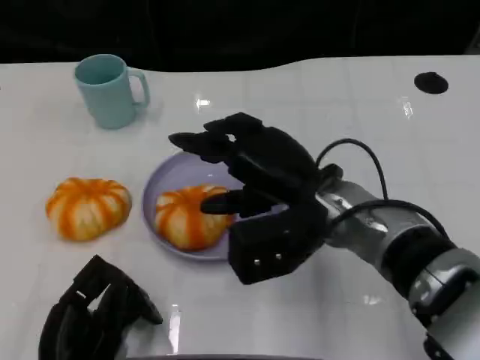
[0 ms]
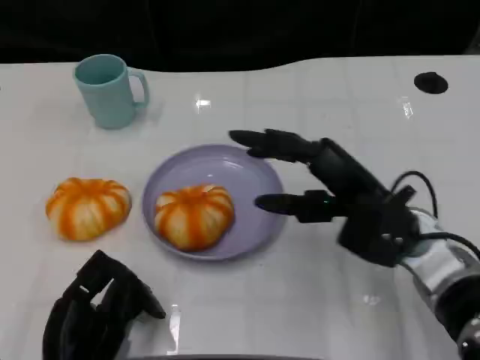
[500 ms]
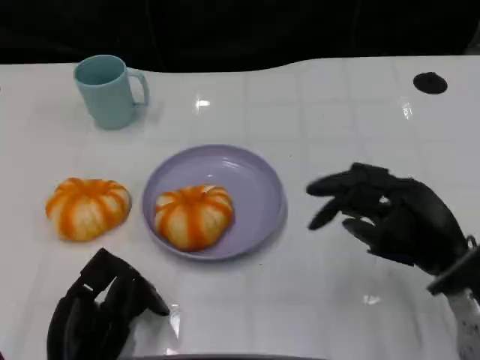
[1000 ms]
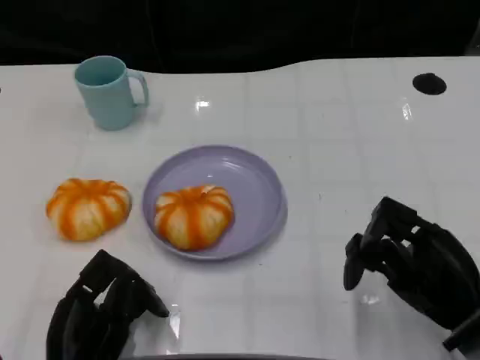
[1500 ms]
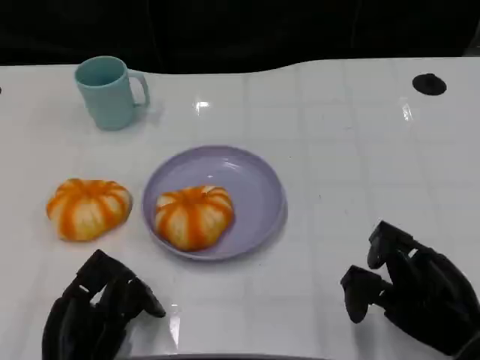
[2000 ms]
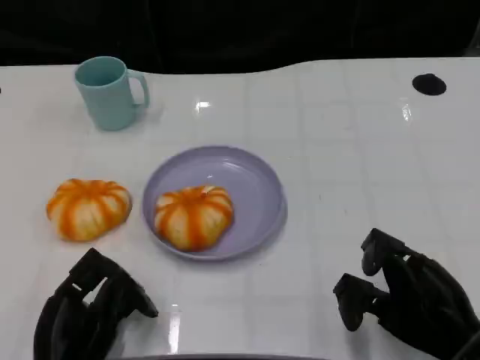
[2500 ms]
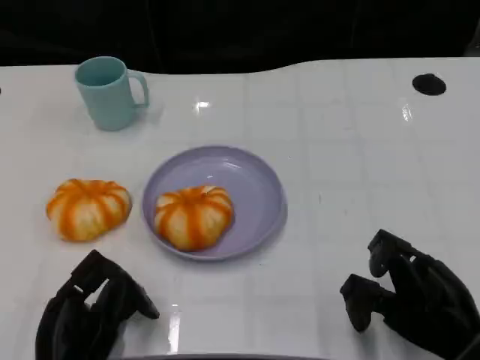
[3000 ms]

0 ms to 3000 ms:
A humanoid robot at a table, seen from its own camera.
Task of the whole recording: Grasp the bread from the table and place it into the plate.
0 ms to 1500 ms: The right hand travels to the right, backward and downward by some 20 cm.
1500 ms to 3000 ms: The hands move only a little.

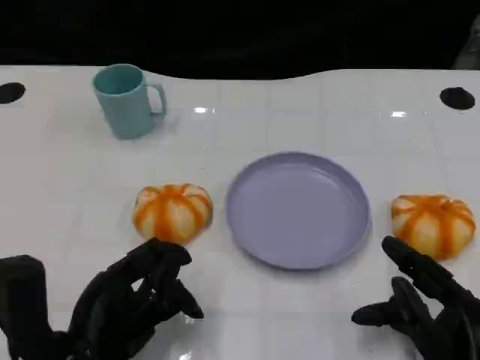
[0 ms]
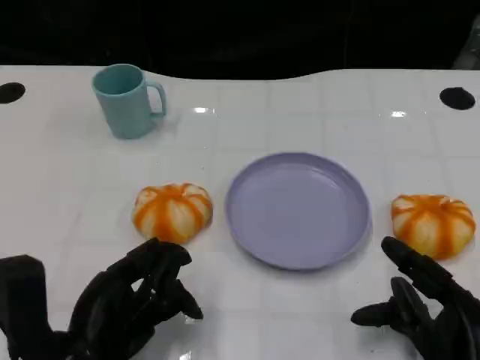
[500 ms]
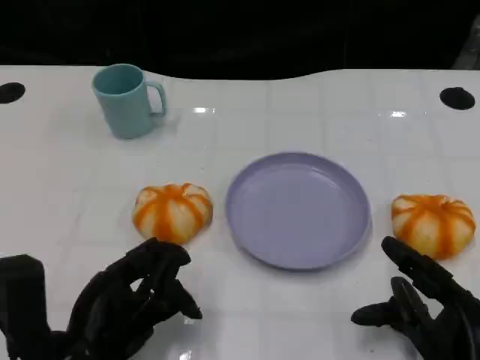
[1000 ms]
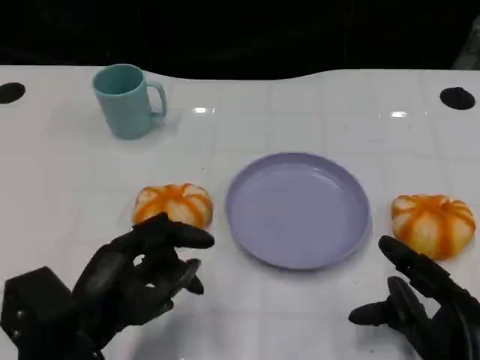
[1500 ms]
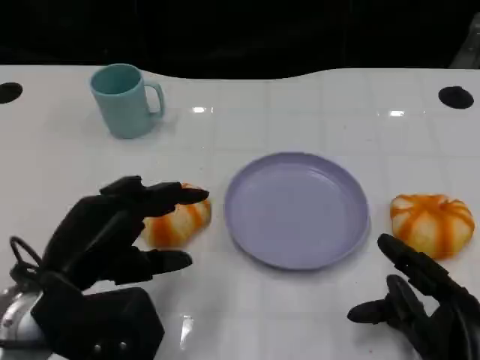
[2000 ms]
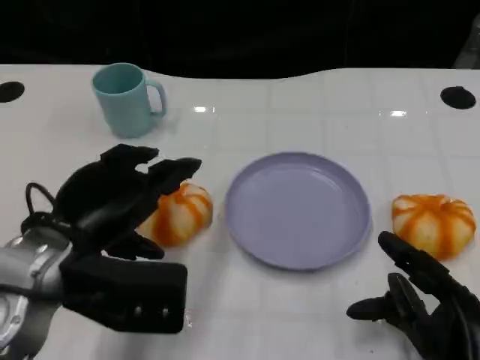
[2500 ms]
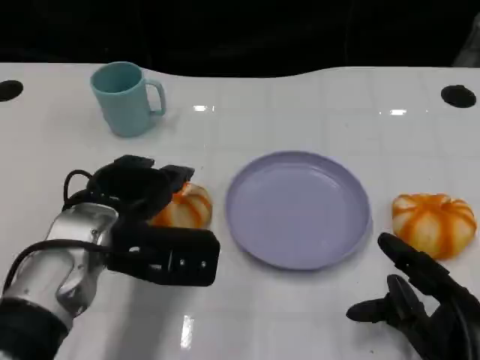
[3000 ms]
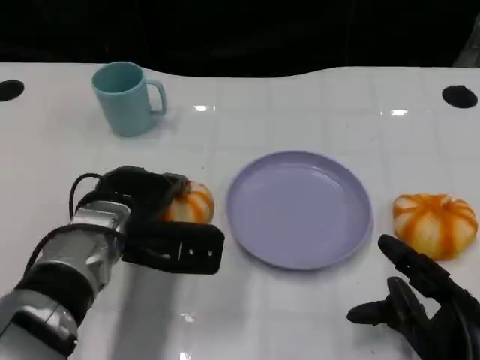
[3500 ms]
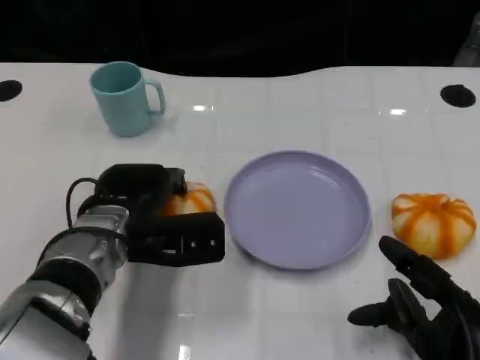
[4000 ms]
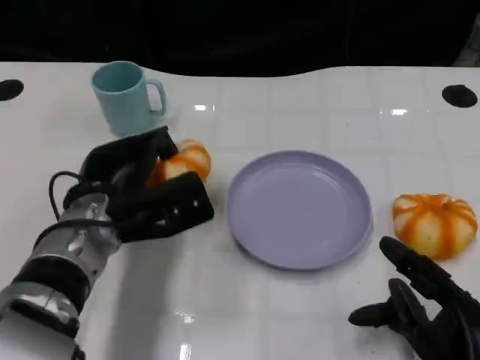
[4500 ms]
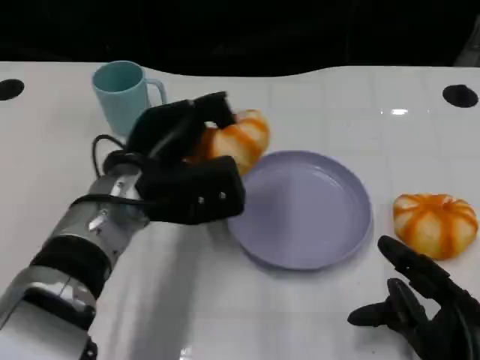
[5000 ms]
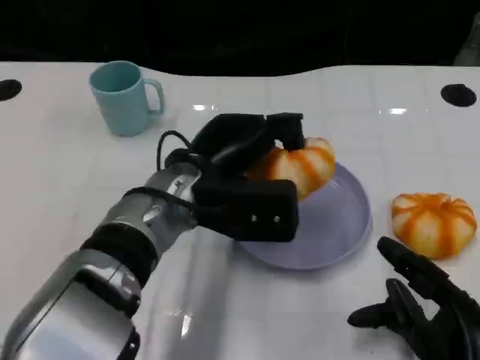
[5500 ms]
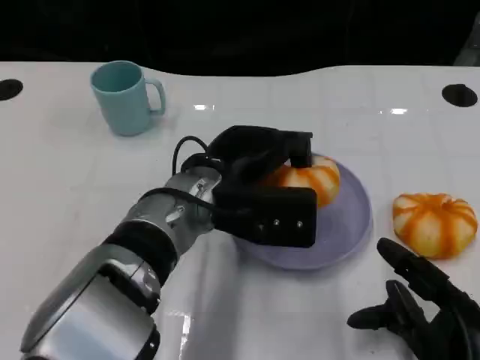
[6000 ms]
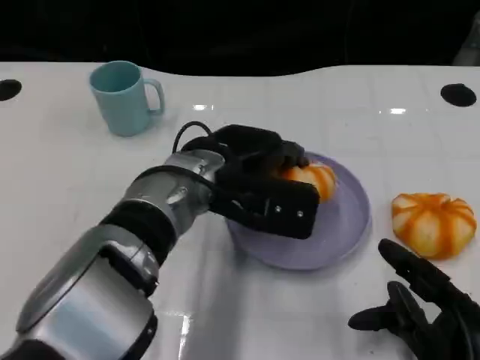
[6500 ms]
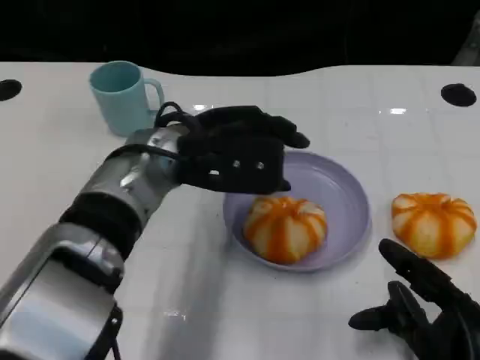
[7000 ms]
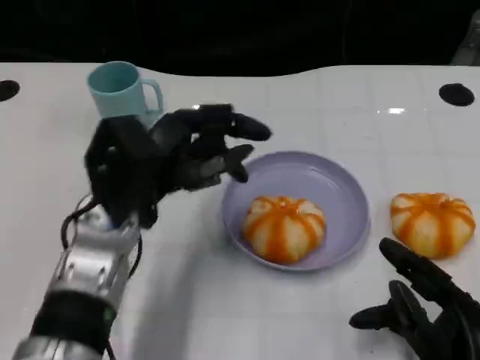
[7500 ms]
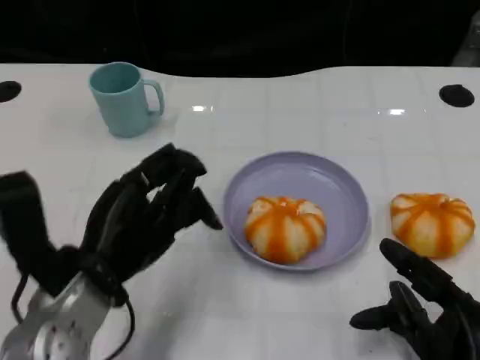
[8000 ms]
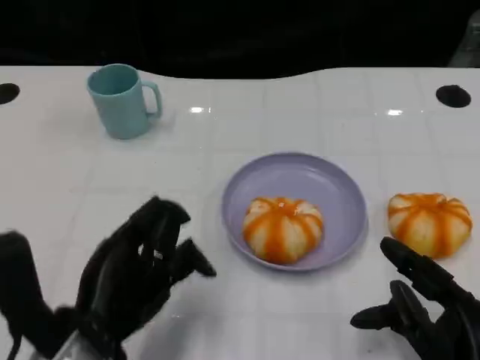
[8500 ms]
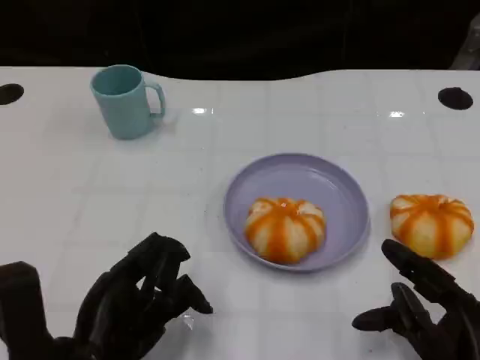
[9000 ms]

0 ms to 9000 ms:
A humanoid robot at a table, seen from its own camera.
Task of the whole recording: Grasp the bread from the table and place it into the plate.
0 ms to 2000 ms: The left hand moves upward, some 5 cm.
2000 ms to 4500 ms: The left hand is displaced forward by approximately 10 cm.
4500 ms to 7000 ms: The left hand shifts about 10 cm upward and to the right.
7000 ms to 9000 ms: The left hand moves backward, to the left and downward, approximately 20 cm.

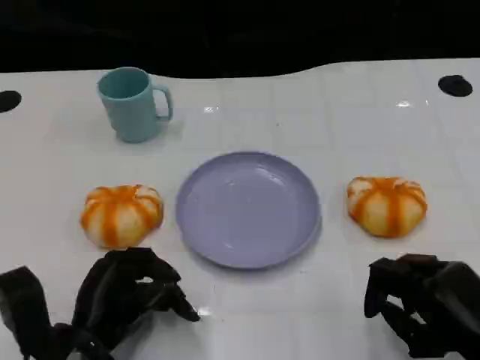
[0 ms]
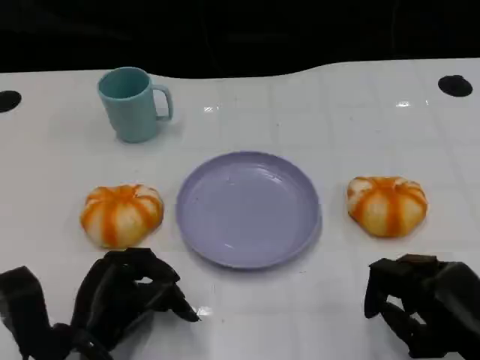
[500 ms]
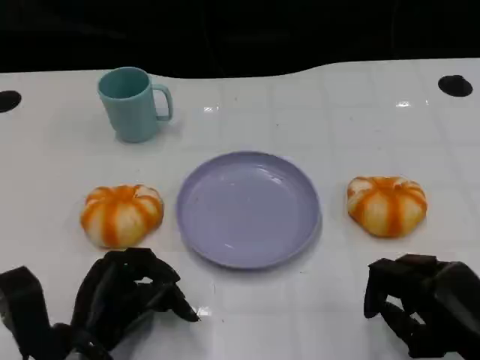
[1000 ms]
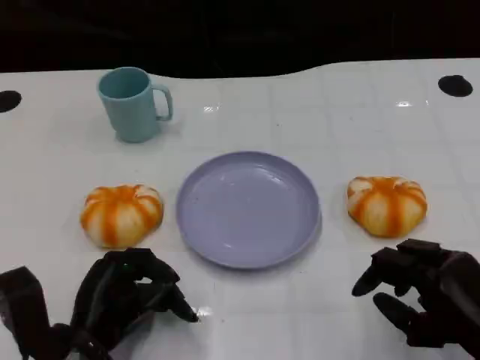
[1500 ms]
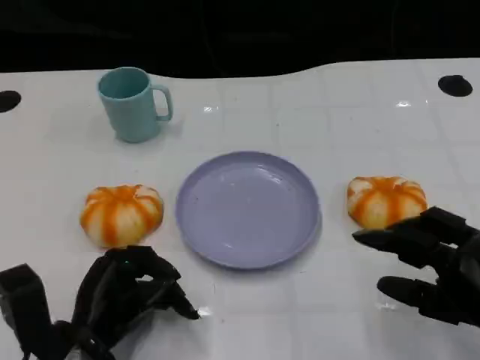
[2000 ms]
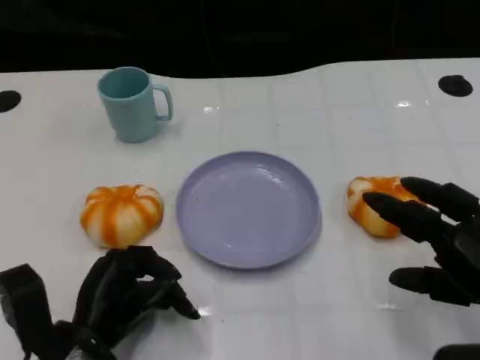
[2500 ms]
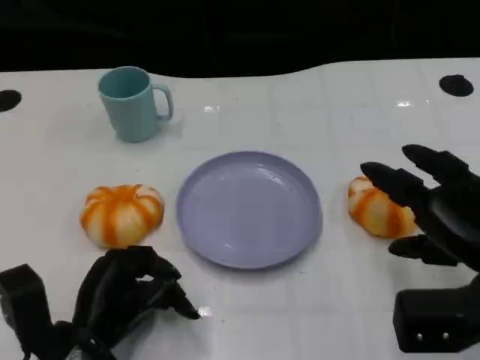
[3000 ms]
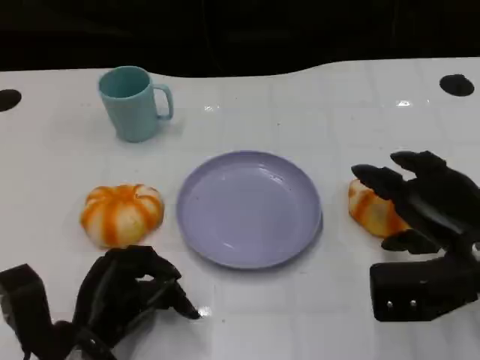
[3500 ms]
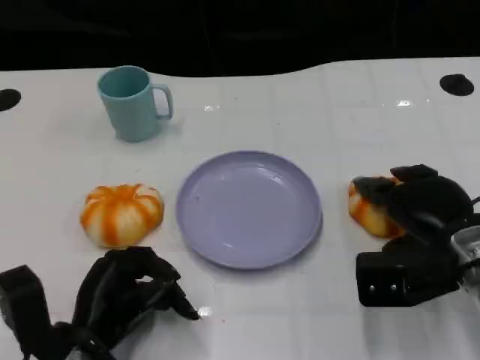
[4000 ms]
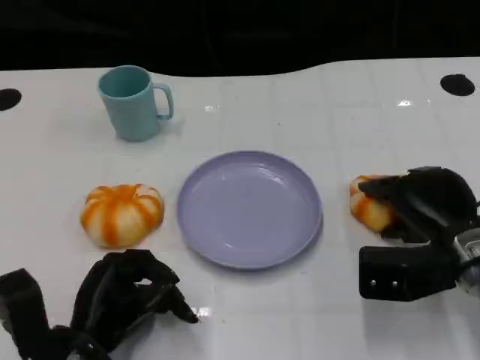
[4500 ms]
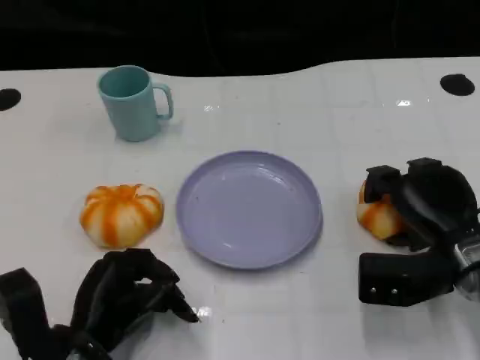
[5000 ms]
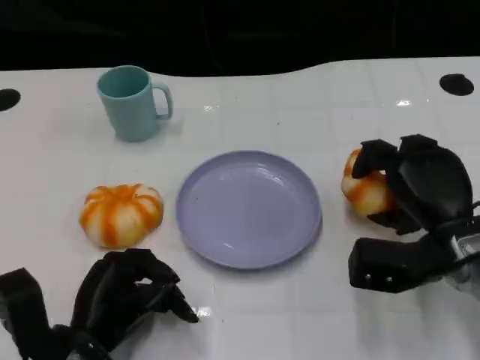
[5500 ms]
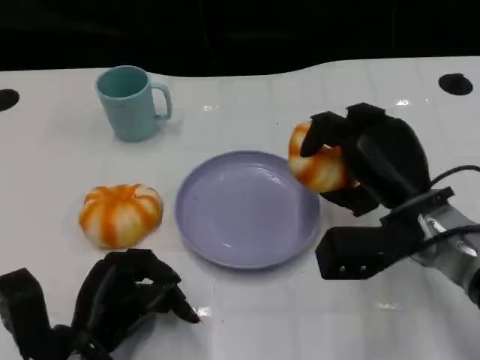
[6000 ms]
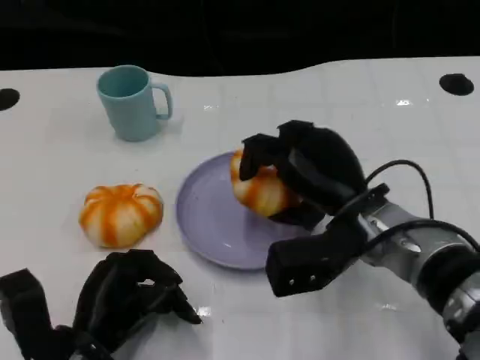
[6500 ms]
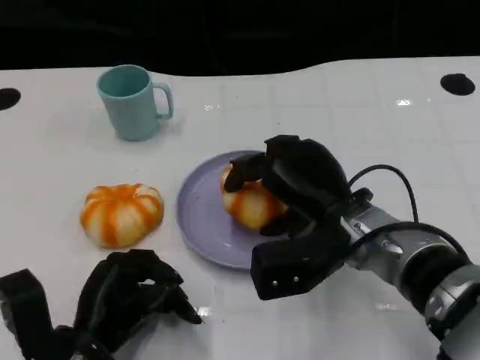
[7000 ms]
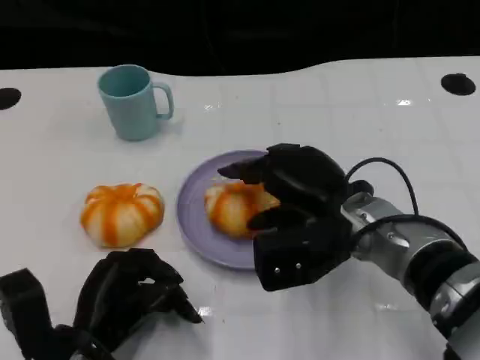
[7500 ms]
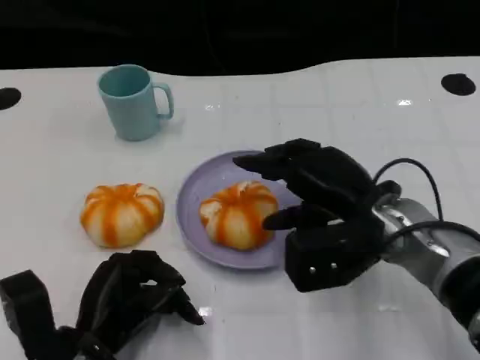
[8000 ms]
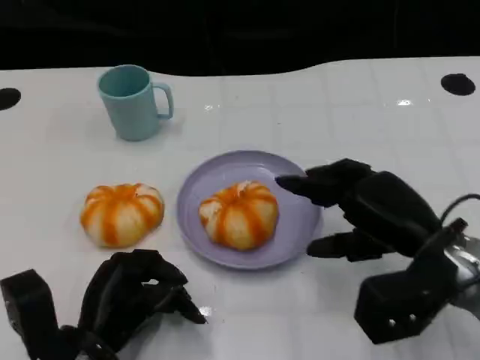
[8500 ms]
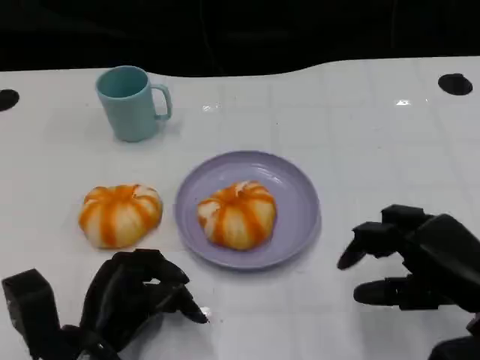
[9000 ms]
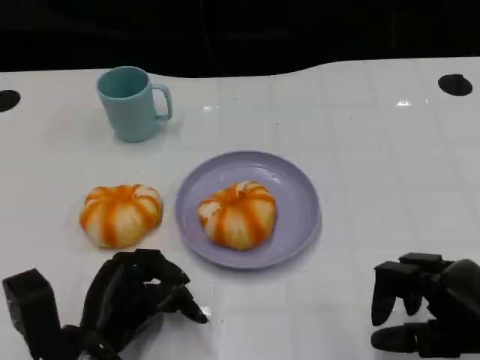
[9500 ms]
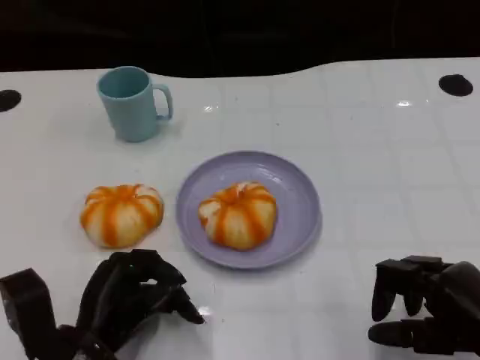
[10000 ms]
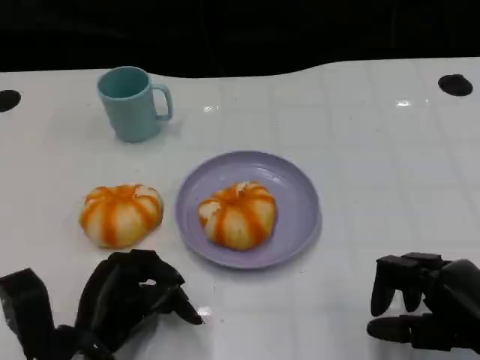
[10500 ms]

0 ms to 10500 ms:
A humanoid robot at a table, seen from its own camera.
Task of the whole recording: Grasp the bread from the table and place it into the plate.
0 ms to 2000 ms: The hands move only a little.
2000 ms to 4000 ms: The right hand shifts approximately 10 cm forward.
4000 ms to 6500 ms: The right hand moves to the left, approximately 10 cm.
6500 ms to 8500 ms: The right hand goes some 10 cm to the right.
8500 ms to 10500 ms: The right hand moves backward and to the right, roughly 10 cm.

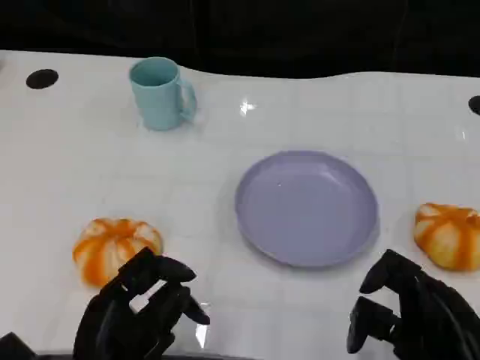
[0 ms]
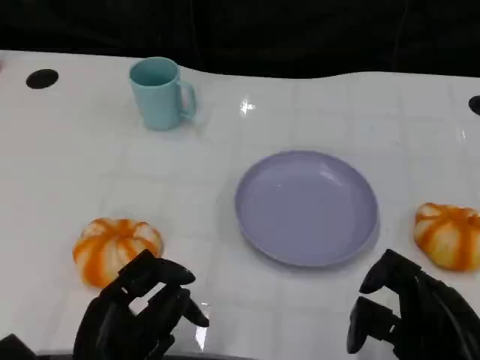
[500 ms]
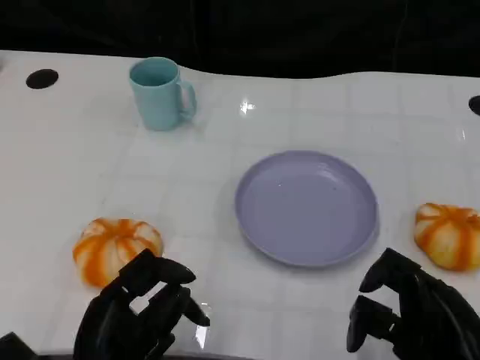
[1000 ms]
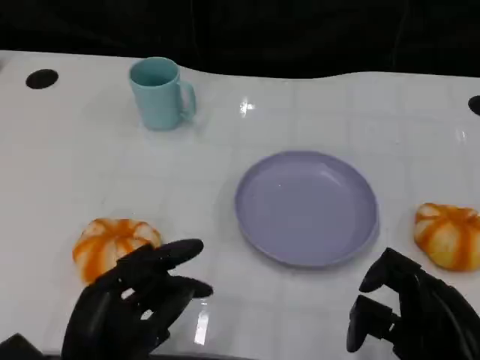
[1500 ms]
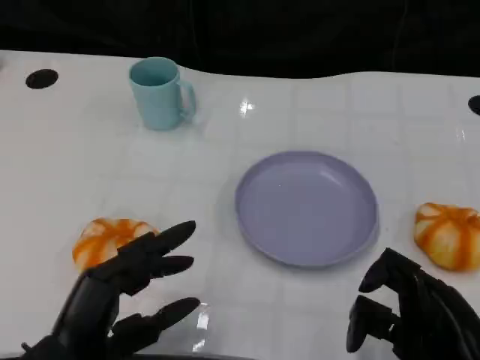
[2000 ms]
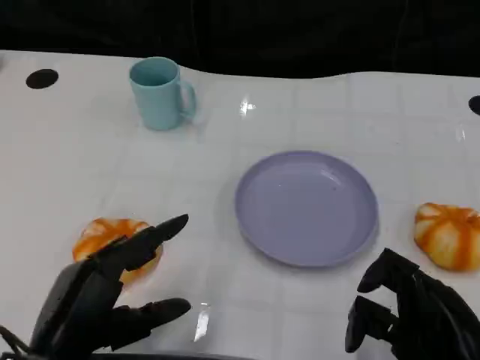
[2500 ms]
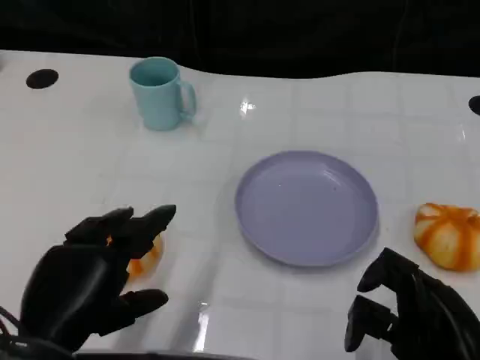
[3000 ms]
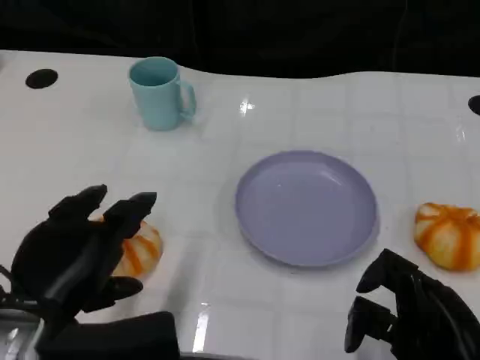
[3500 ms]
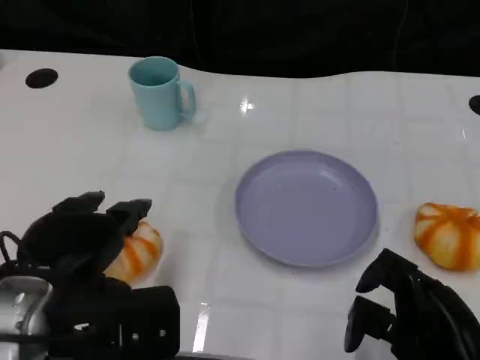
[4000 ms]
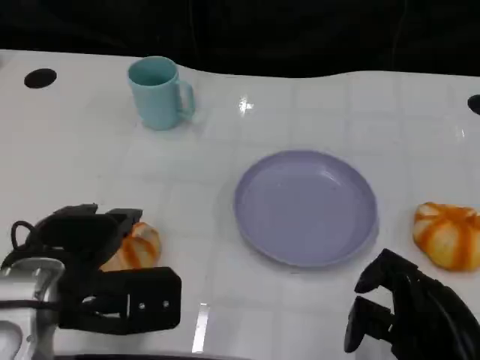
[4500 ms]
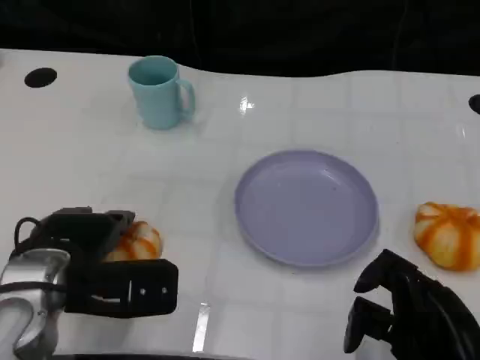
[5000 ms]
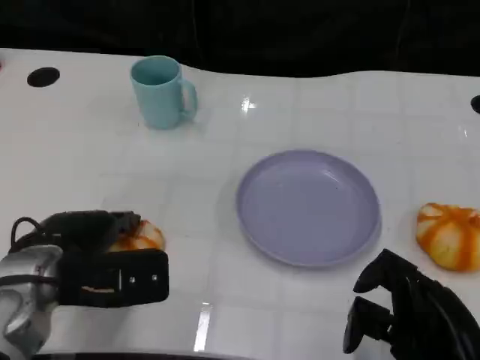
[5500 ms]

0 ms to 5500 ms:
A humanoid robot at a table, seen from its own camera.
Task of the whole recording: Grasp the bread from the table and place it into the plate.
2000 ms to 3500 ms: The left hand is displaced upward by about 5 cm.
3500 ms to 5500 ms: The left hand heads forward, covering roughly 10 cm.
